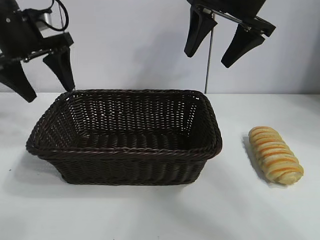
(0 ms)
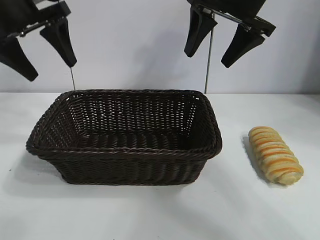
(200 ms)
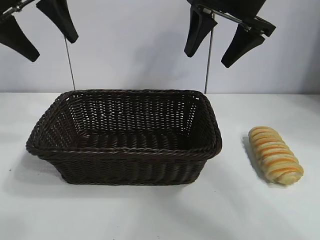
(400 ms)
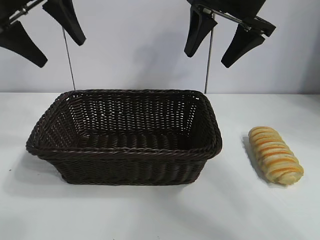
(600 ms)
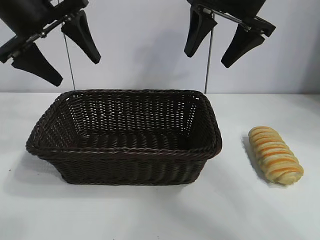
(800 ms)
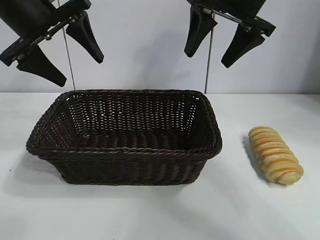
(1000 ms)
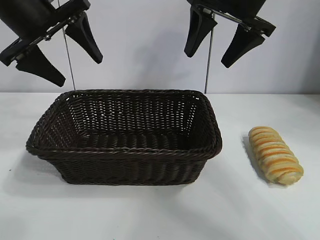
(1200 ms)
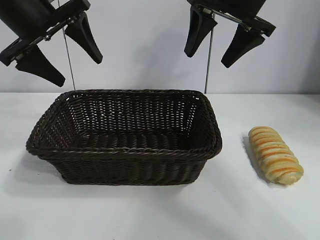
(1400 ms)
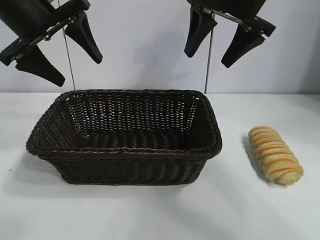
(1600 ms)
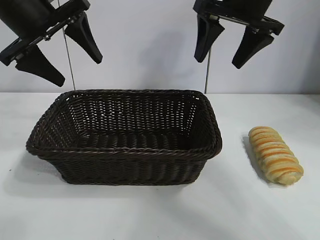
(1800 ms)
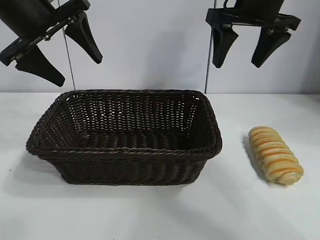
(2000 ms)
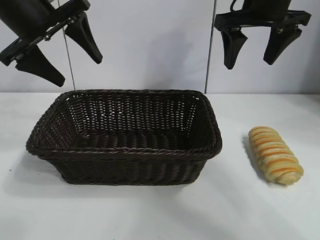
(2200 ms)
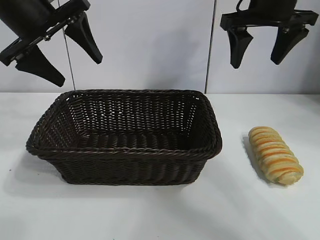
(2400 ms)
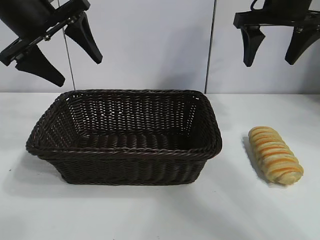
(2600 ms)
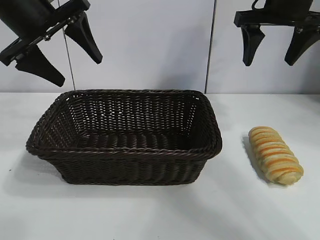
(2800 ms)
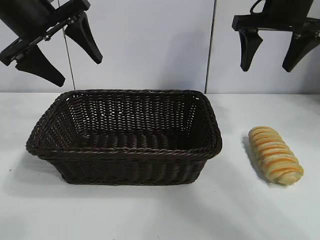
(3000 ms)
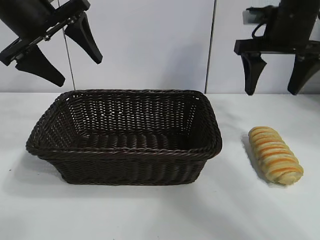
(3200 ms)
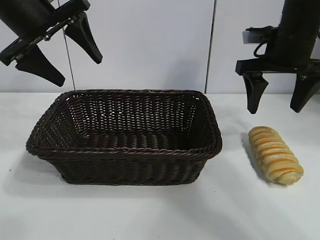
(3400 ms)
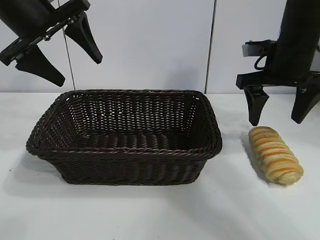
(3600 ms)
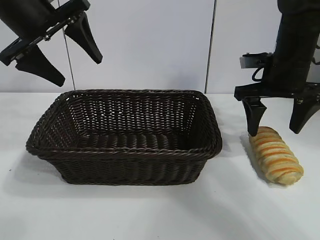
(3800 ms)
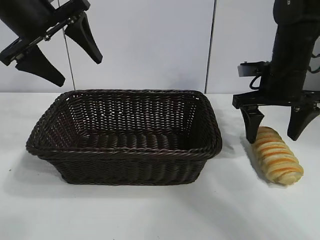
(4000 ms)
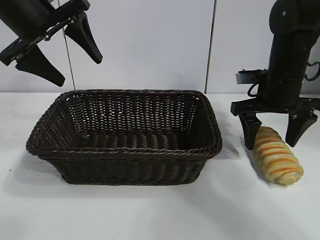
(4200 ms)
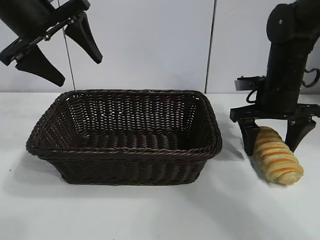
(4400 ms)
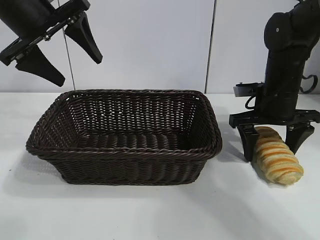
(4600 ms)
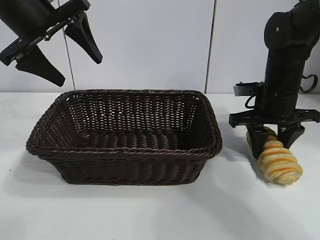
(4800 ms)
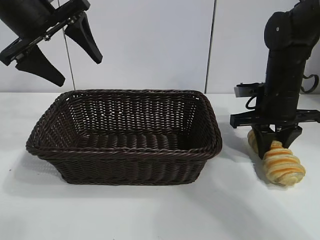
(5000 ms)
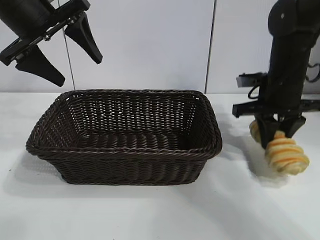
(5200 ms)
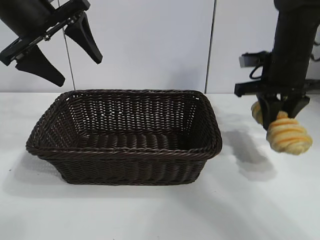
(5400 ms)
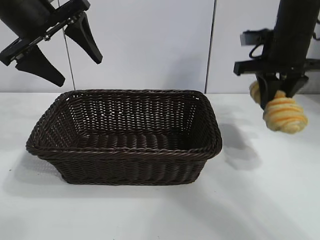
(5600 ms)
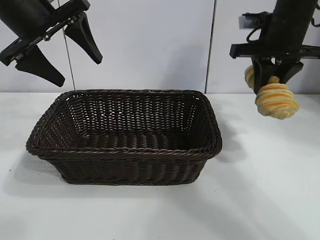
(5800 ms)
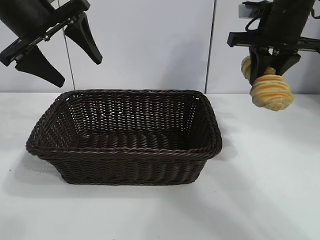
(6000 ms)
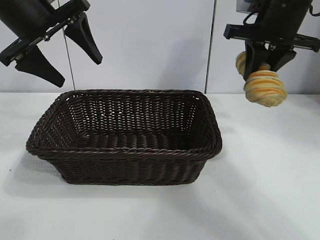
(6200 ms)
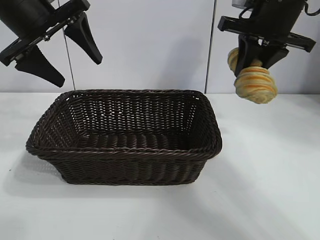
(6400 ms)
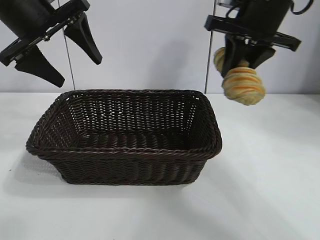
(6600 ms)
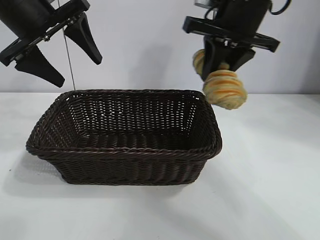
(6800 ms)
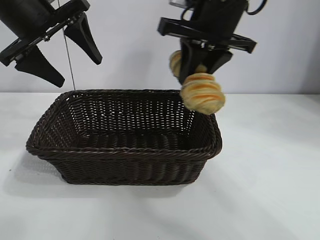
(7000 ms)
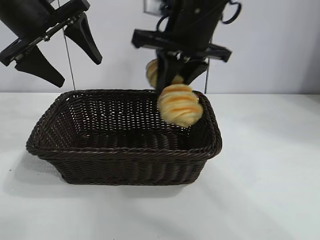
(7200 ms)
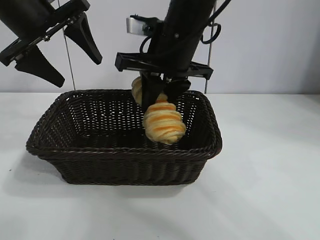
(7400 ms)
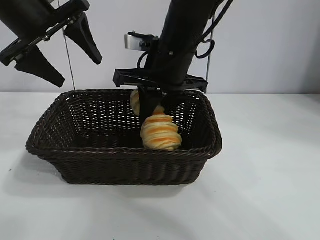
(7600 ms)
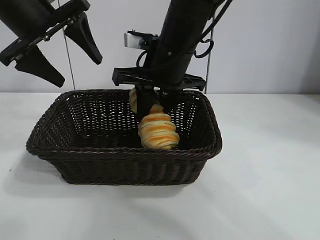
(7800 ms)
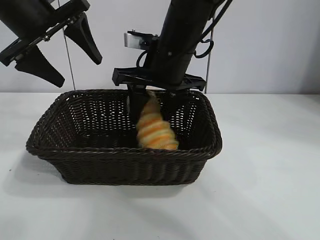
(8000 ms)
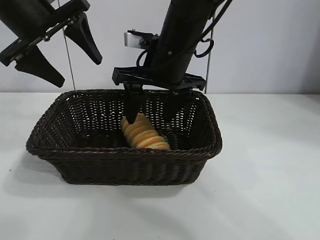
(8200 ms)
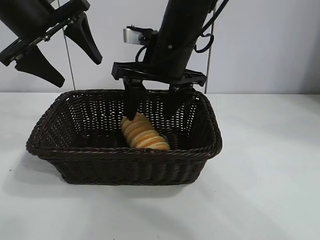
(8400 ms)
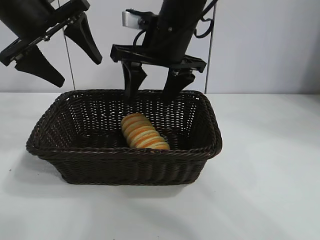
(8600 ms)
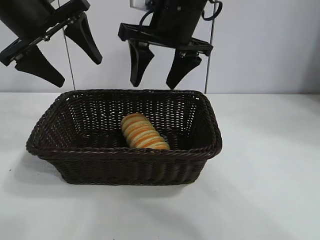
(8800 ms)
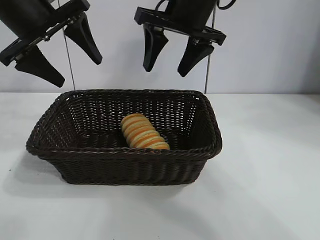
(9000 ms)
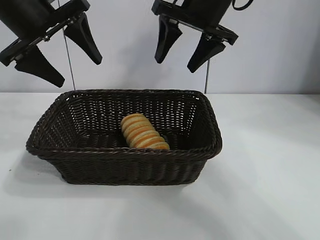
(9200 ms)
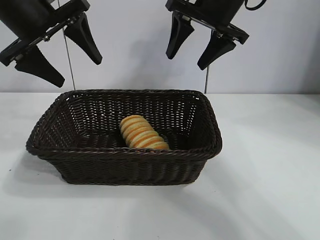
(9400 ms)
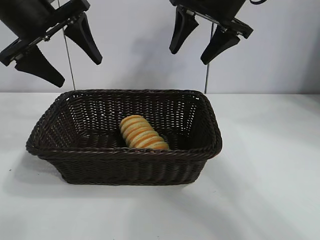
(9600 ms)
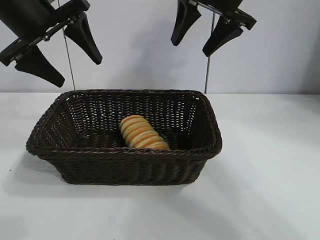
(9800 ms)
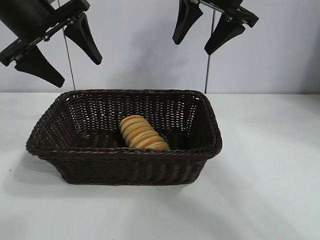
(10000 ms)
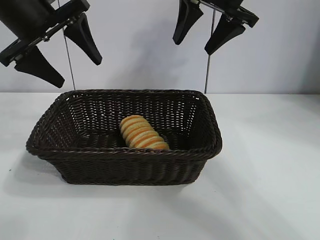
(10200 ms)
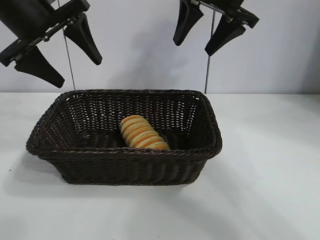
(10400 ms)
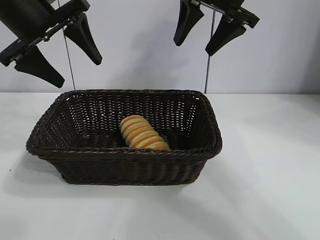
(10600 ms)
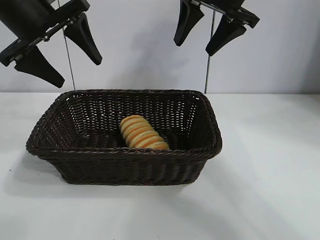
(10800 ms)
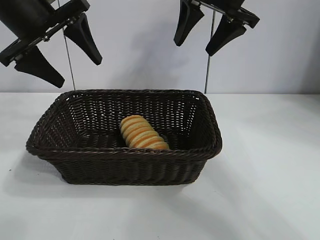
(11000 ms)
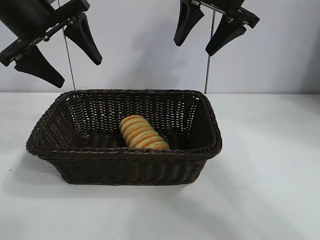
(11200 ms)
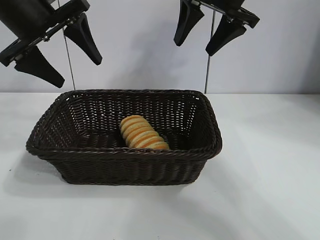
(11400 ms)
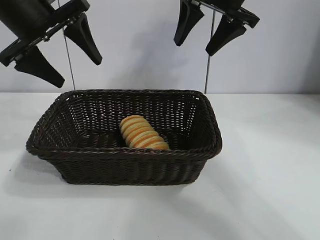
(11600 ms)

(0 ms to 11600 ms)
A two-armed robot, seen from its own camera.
Task of the whole recording: pick up the long bread and put it into the basket.
Step, 0 ms - 4800 ms: Grasp the long bread with right gripper.
Step, 5200 ms - 8400 ms: Place the long bread in the basket with right gripper.
